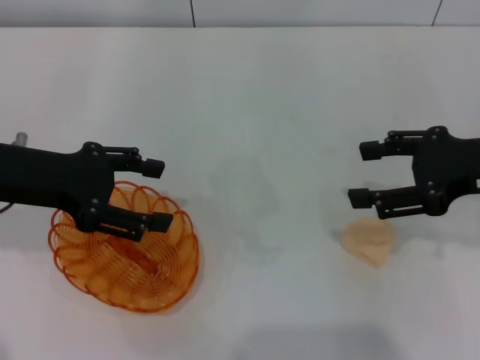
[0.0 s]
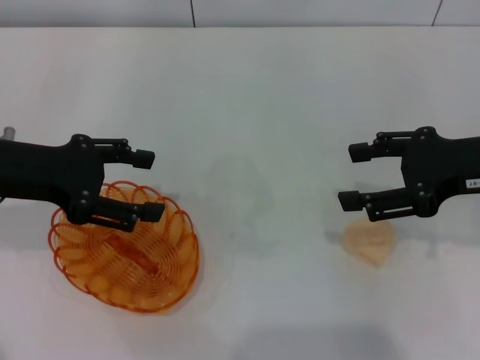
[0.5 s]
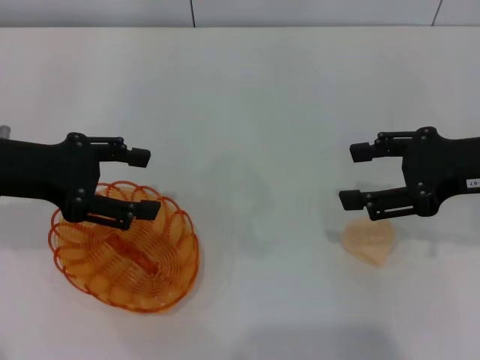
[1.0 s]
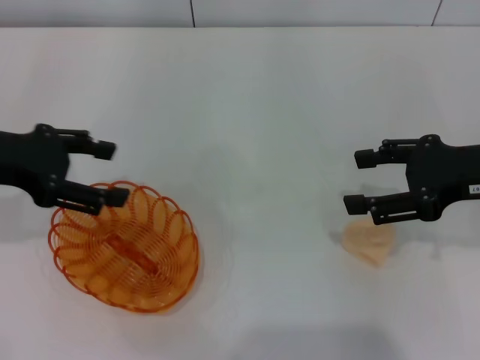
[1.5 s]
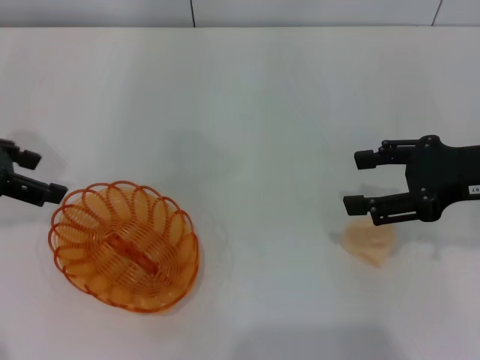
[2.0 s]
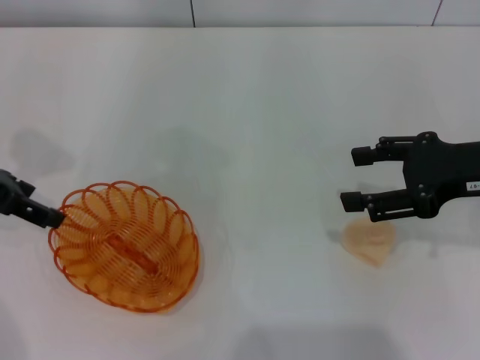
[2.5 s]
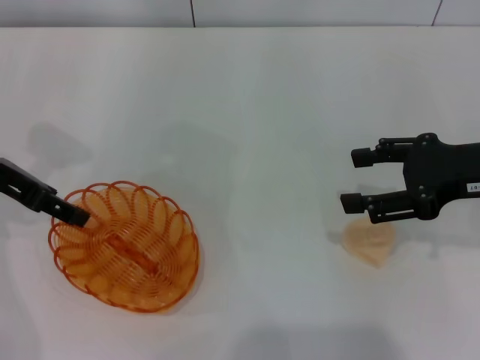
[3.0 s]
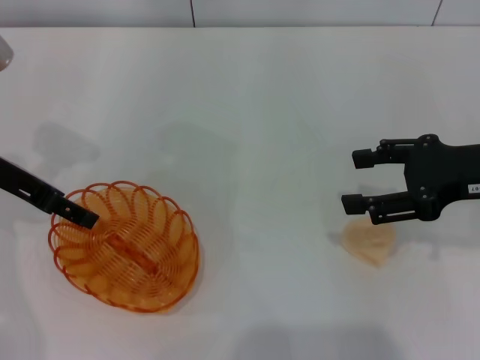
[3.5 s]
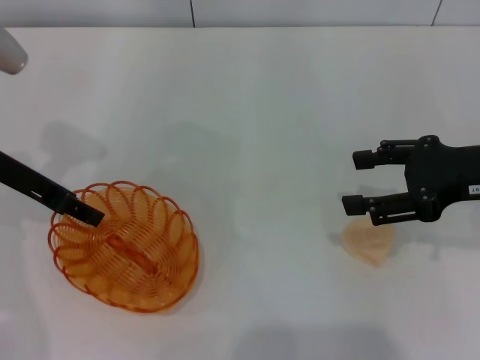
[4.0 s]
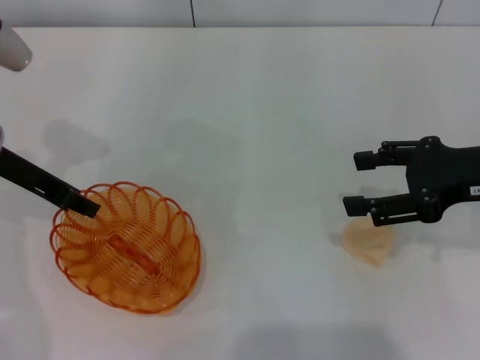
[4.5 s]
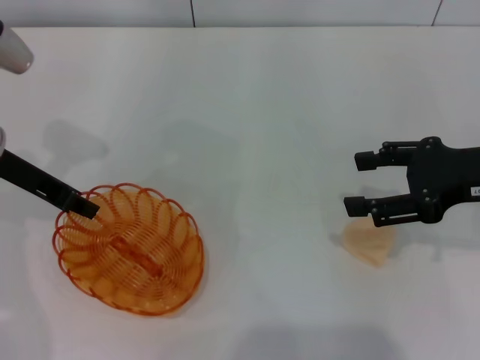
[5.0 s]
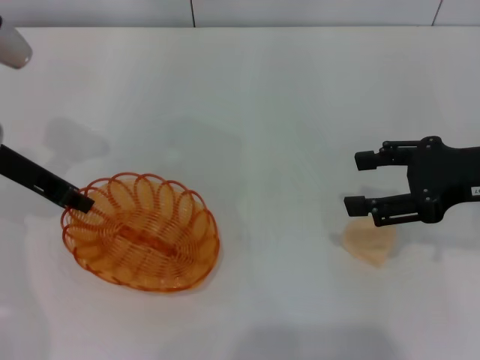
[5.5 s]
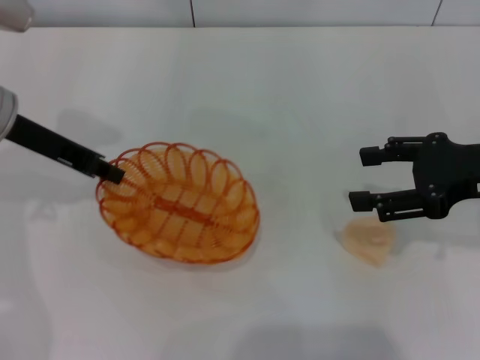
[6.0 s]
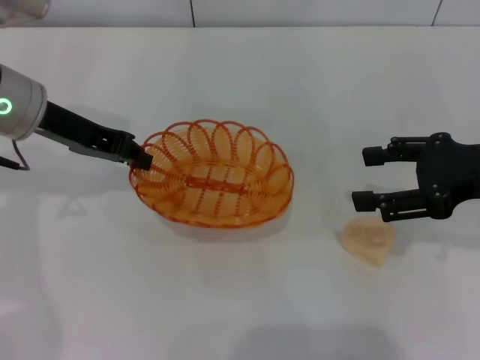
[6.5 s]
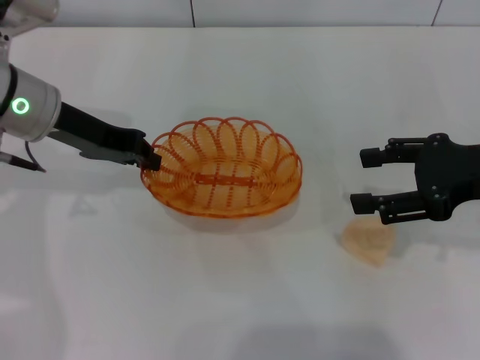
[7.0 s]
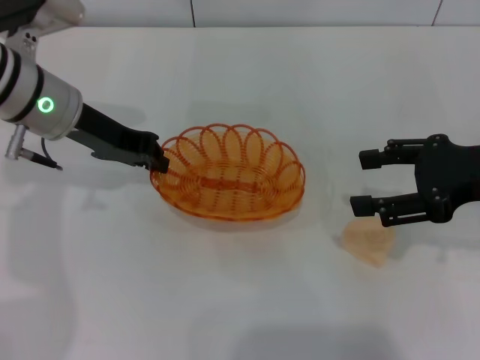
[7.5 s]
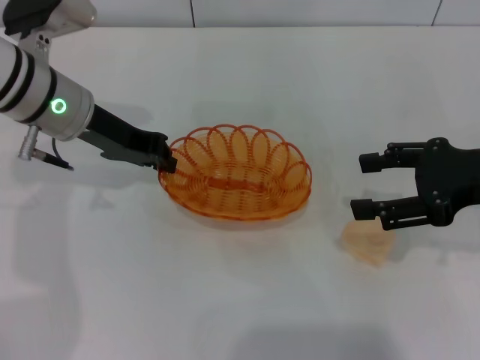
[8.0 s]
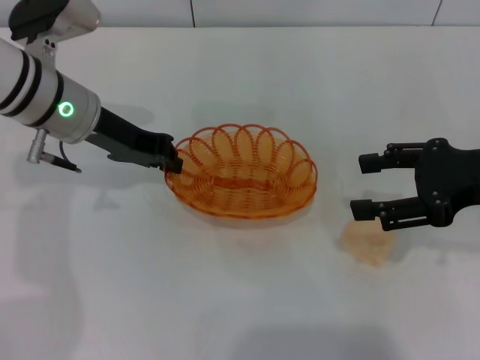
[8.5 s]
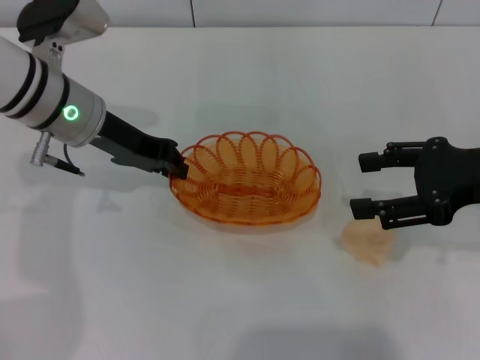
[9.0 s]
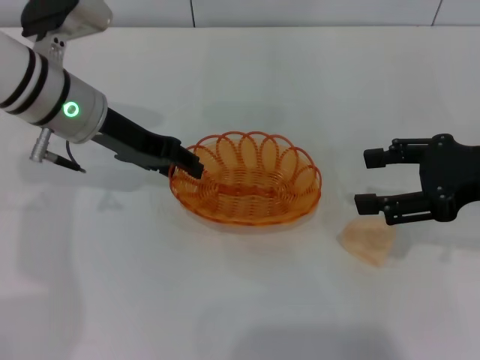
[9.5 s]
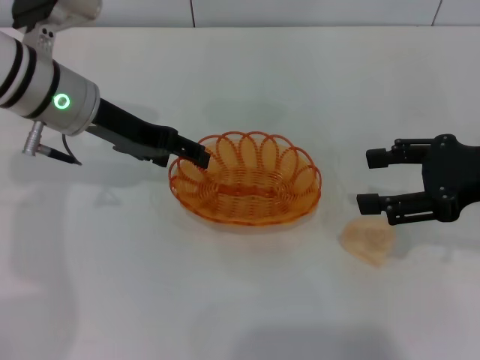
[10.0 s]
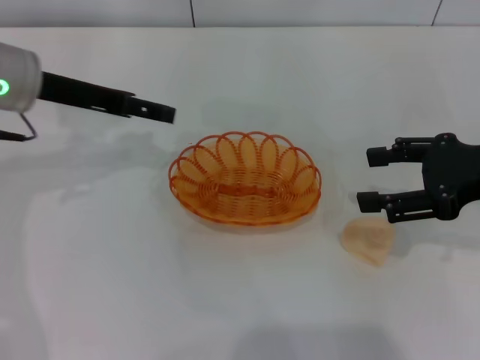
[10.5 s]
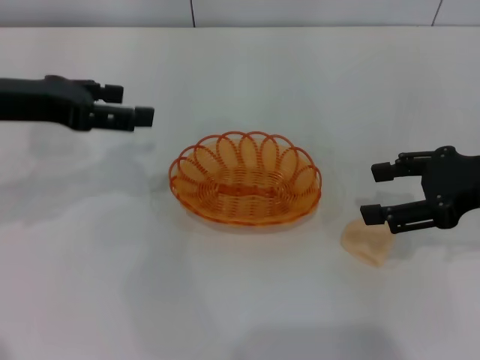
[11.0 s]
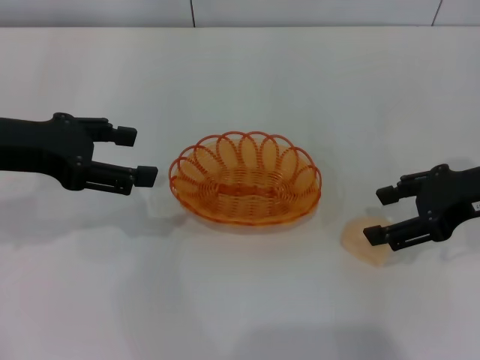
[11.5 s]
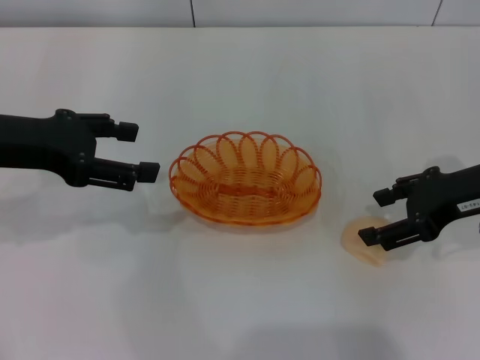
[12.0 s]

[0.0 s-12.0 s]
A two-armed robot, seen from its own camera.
Step, 0.0 to 5.5 s: Pick up the basket with the left gripper.
Step, 6.0 to 10.0 s: Place the basket in the center of view with the left gripper.
0.0 to 2.0 s: The left gripper moves to the left, about 5 cm.
2.0 to 4.0 s: The left gripper goes some 5 cm to the right.
4.0 to 6.0 s: The left gripper closes its fingers.
6.0 to 8.0 s: The left gripper heads to the right, covering roughly 5 cm.
8.0 to 10.0 s: The left gripper opens up.
10.0 to 12.0 s: The left gripper heads to the left and backward, covering roughly 10 cm.

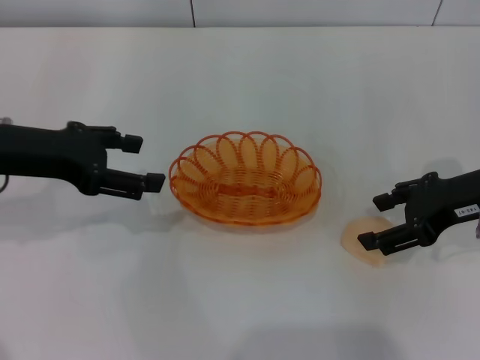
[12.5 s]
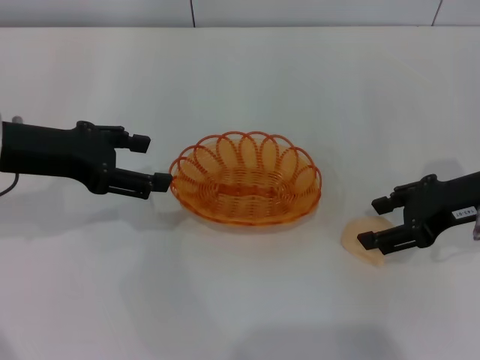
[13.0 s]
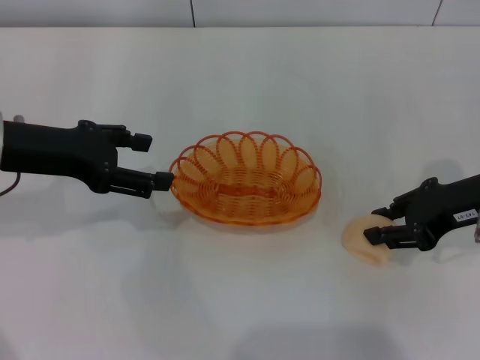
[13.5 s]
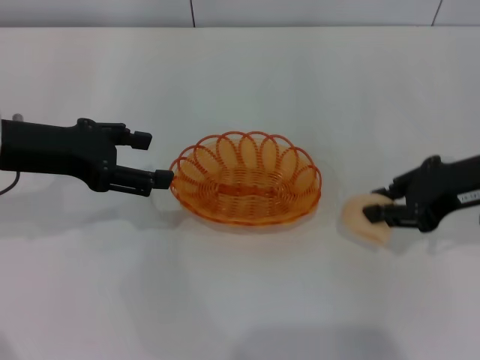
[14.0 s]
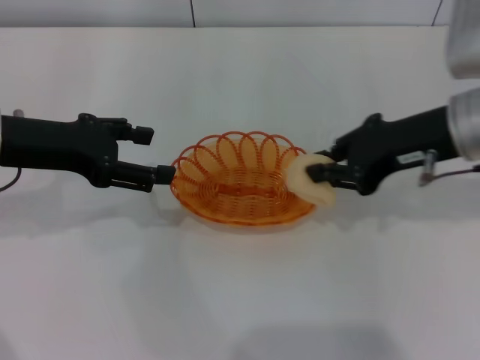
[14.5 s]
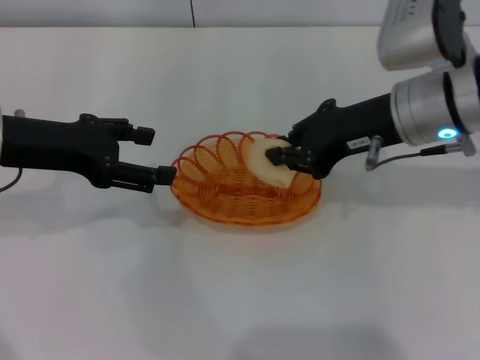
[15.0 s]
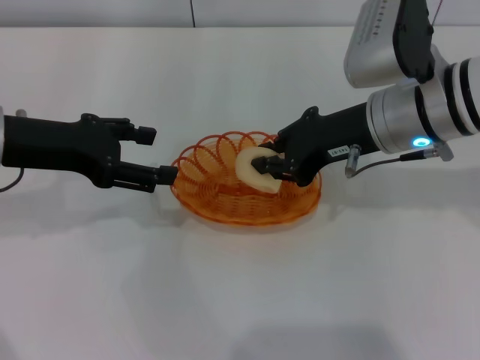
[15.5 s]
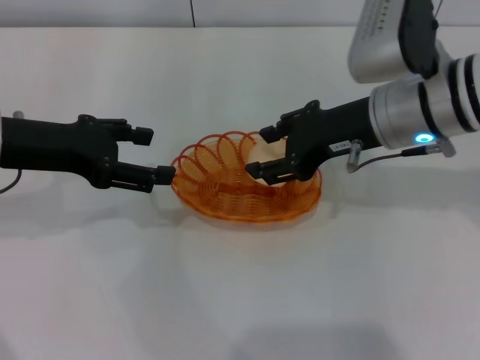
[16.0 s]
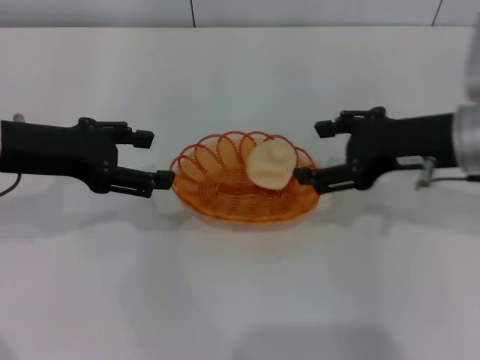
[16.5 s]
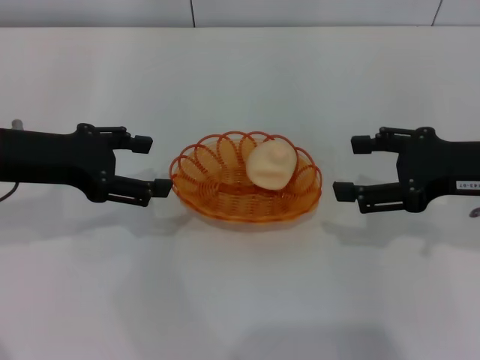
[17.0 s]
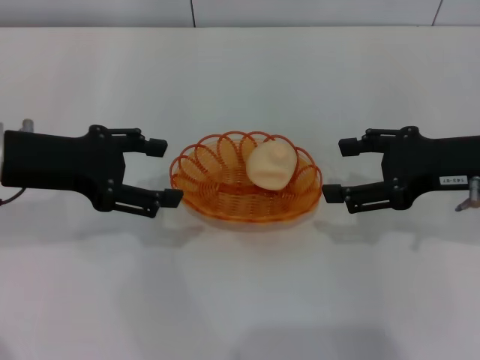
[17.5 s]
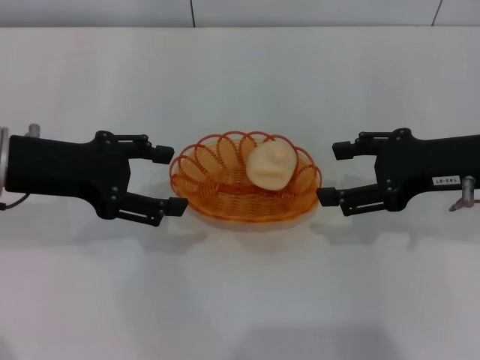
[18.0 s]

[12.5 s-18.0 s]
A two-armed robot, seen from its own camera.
Step, 14.5 to 16.0 s: Place the egg yolk pastry into the basket with the right gripper.
12.5 to 14.5 s: The right gripper heads to the left, covering some 5 cm, and closes.
14.5 to 16.0 s: The right gripper shifts some 5 cm to the left.
16.0 to 18.0 s: The right gripper shifts some 10 cm to the right, and opens its fingers.
